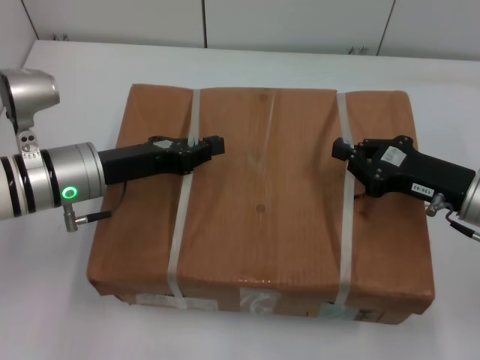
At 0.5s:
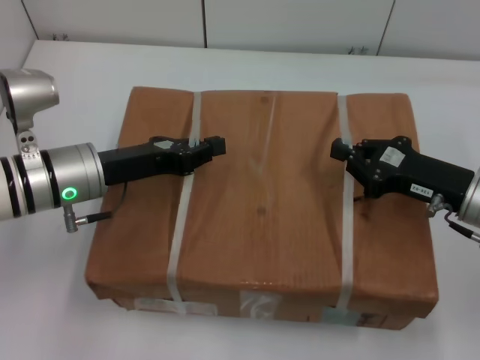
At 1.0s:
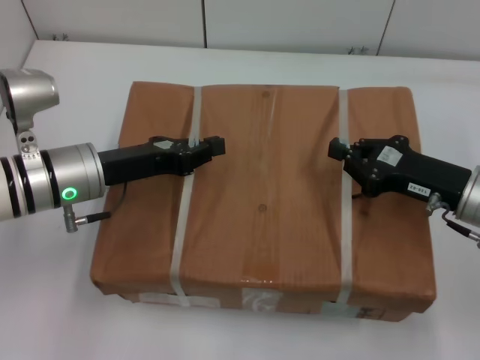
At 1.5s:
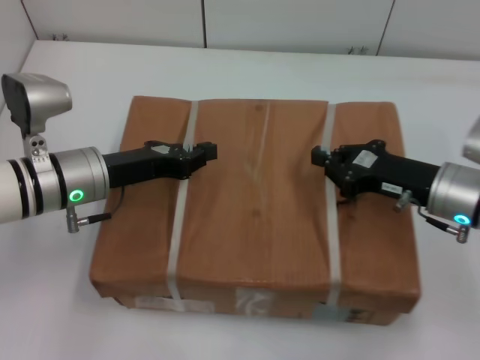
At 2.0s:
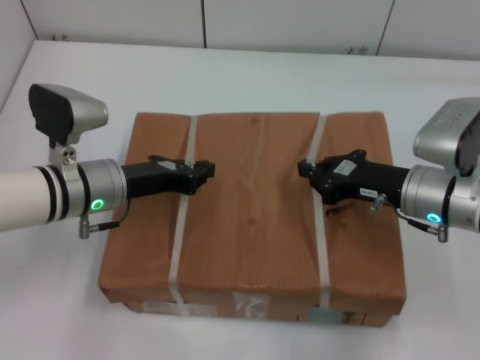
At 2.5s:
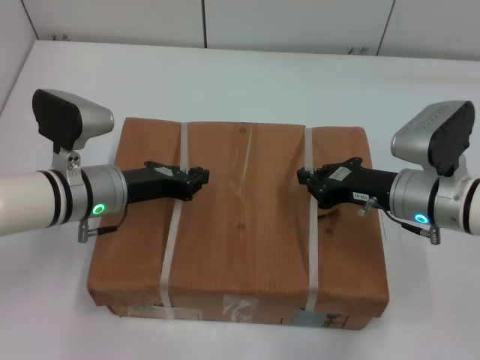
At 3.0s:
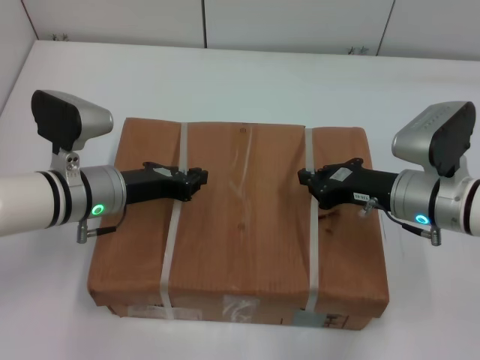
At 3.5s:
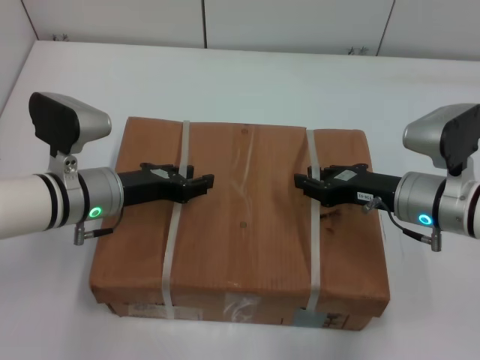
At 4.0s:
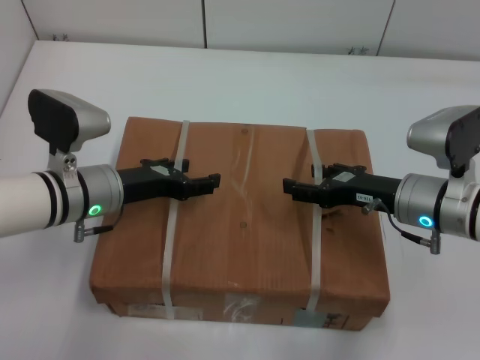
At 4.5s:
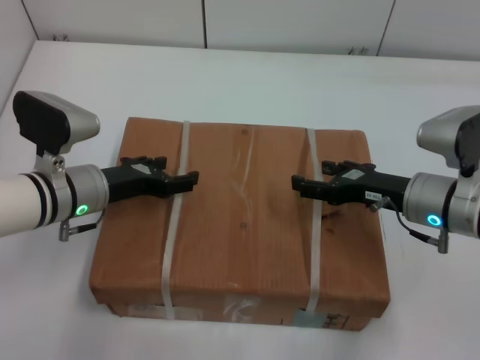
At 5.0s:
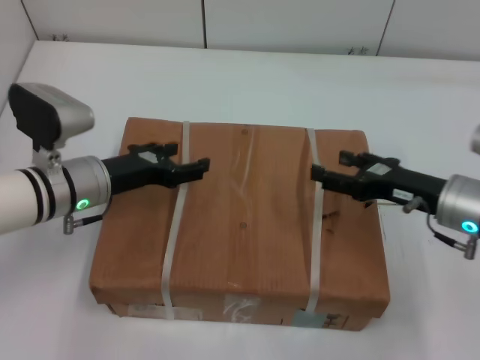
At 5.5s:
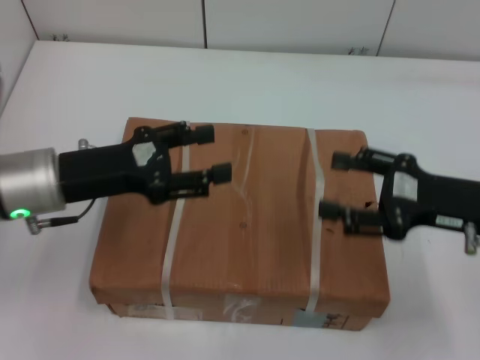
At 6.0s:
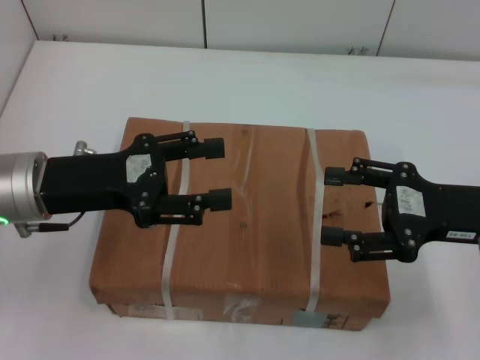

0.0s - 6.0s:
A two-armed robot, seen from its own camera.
Task of the whole recording: place the box on the table with both arms.
Step, 0.0s - 2.5s: Place the box on the table with left gripper.
Step, 0.0s - 2.5s: Place the box on the table with right gripper.
Step, 3.0s - 3.5s: Loosen the box on the table with left gripper.
Step, 3.0s - 3.5s: Loosen the box on the table with right gripper.
0.0s - 2.0s: The right gripper shifts by some 5 cm.
2.0s - 4.0s: The left gripper opens up. Meanwhile the right gripper opens its fingers.
4.0s - 6.0s: The right gripper travels upward, to the right and backward by roughly 10 cm, while the left gripper moves upward and backward, about 10 cm.
